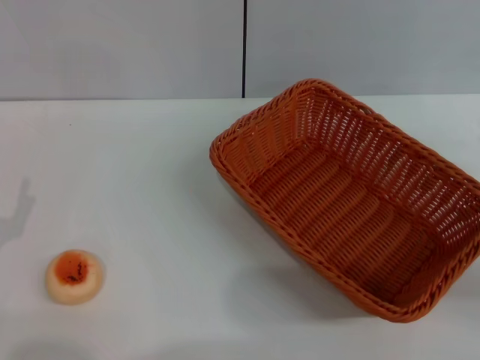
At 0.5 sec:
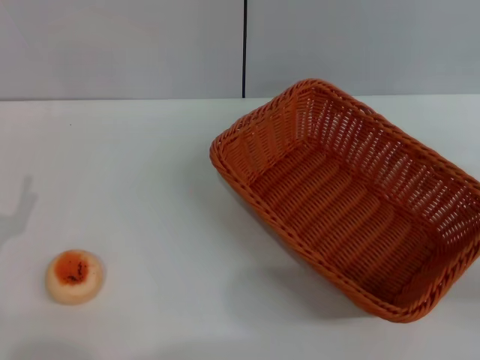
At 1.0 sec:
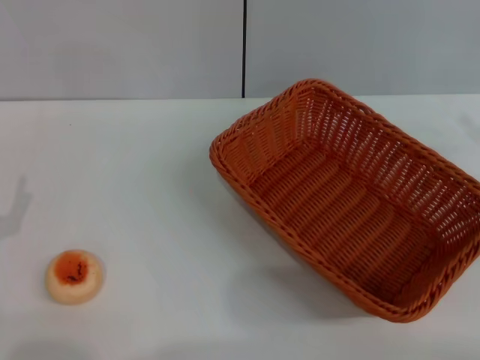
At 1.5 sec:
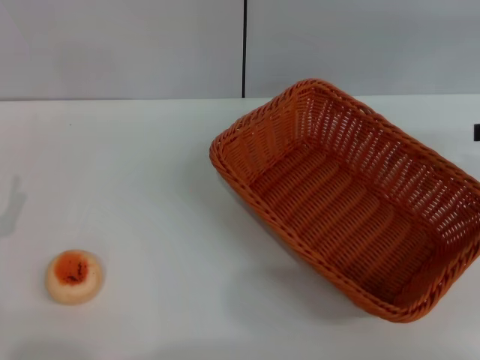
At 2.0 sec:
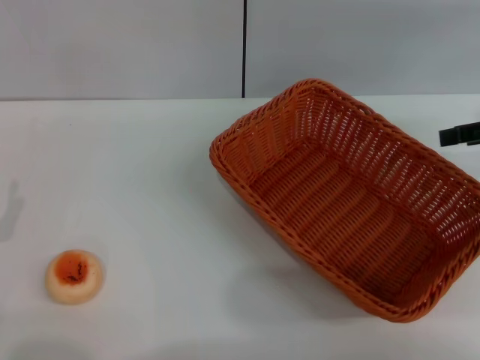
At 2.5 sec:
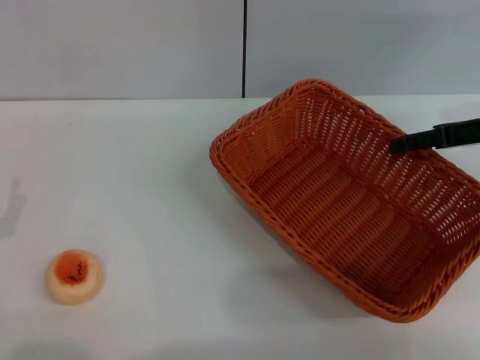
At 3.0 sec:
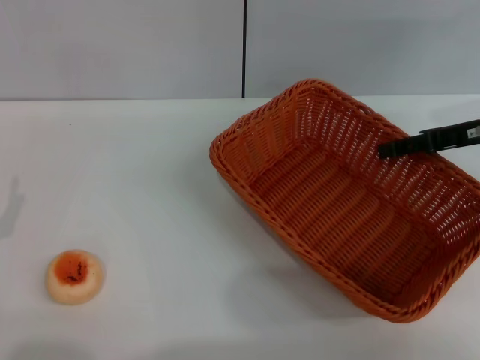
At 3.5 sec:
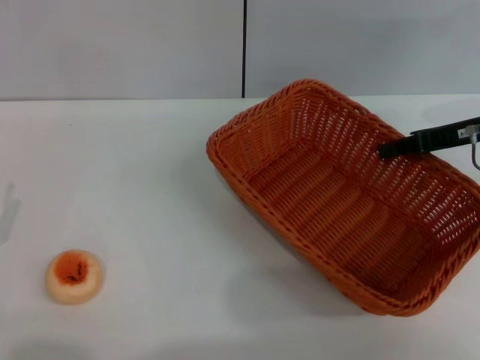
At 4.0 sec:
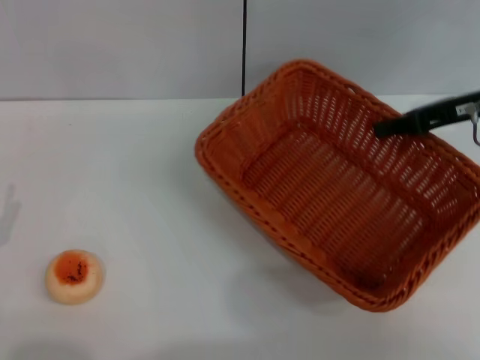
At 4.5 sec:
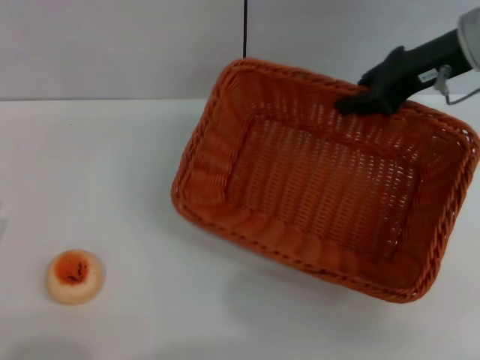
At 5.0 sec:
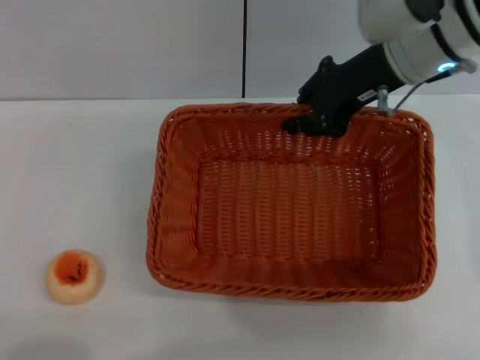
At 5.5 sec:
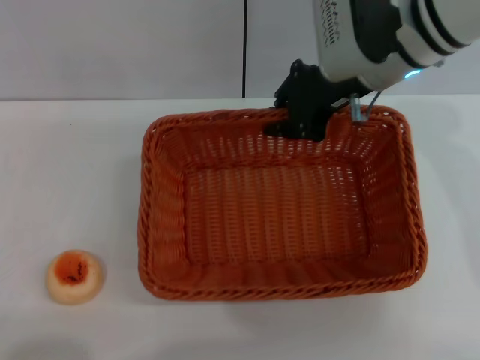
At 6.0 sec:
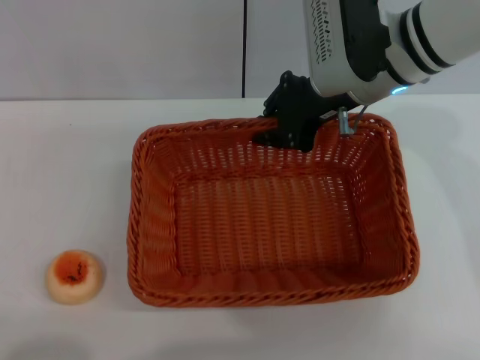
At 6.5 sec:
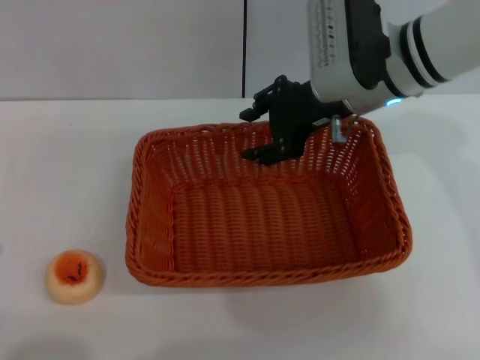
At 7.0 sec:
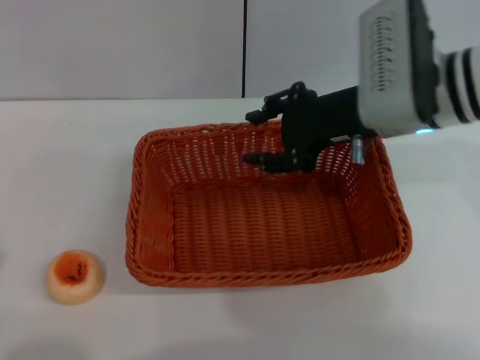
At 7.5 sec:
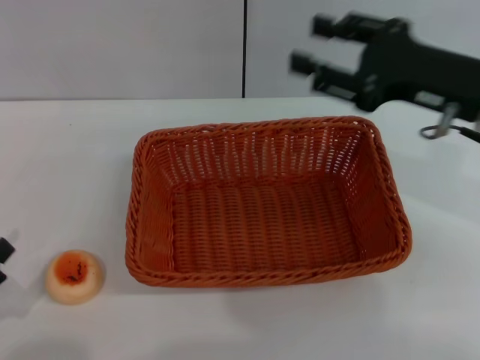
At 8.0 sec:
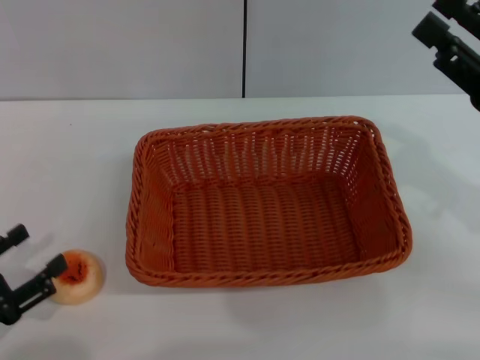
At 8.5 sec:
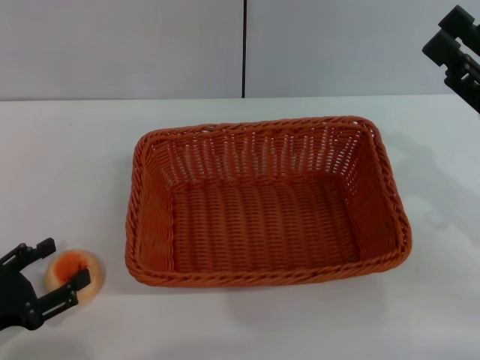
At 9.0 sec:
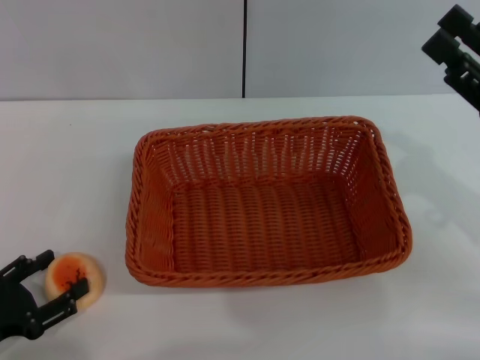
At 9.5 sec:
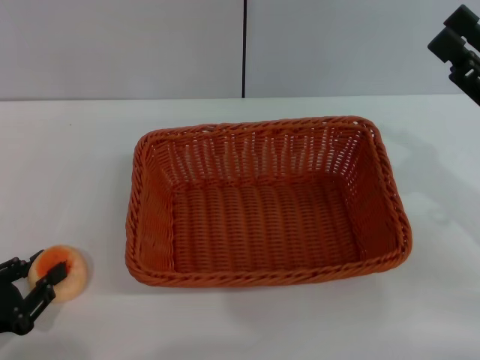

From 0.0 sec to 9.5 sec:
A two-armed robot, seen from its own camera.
Step, from 0.0 sec to 7.0 sec: Move the basket to the center of view with the right gripper.
From 0.0 sec to 2.0 sec: The right gripper shifts roughly 15 cm upward and forward.
From 2.0 sec to 4.0 sec: The right gripper travels to the left by approximately 5 cm, and closes up.
From 4.0 sec to 5.5 sec: The right gripper shifts approximately 15 cm to the left. The left gripper moves backward, approximately 5 cm.
From 5.5 sec to 7.5 sec: The right gripper travels to the right and backward by roughly 15 cm, and opens up.
From 7.5 sec to 9.5 sec: The right gripper travels to the right and downward by approximately 10 cm. Meanwhile the left gripper closes up.

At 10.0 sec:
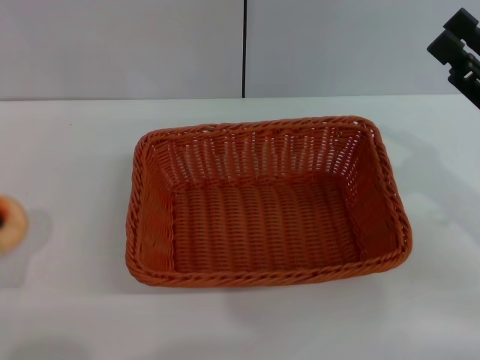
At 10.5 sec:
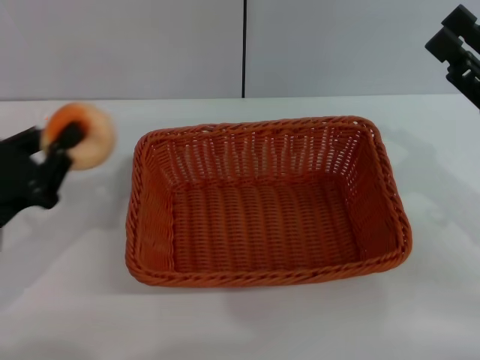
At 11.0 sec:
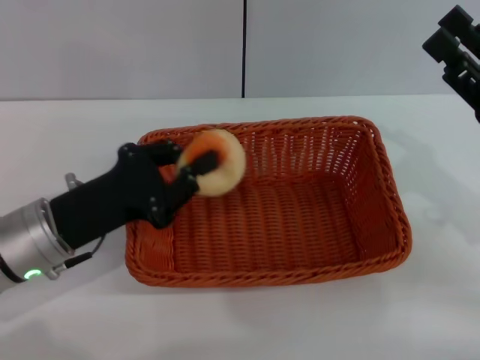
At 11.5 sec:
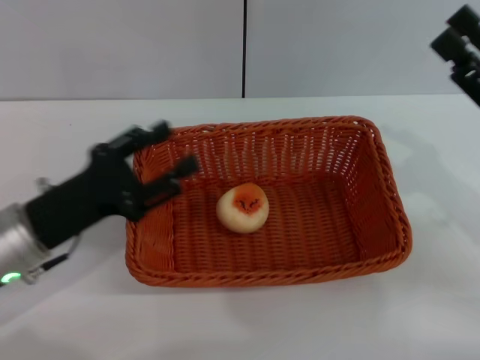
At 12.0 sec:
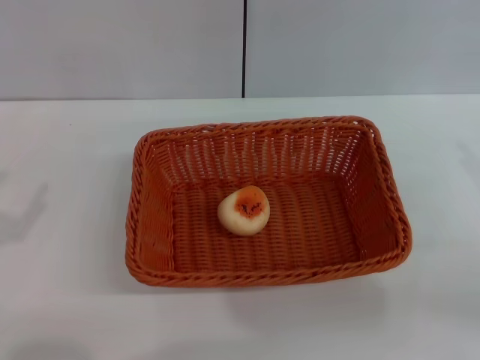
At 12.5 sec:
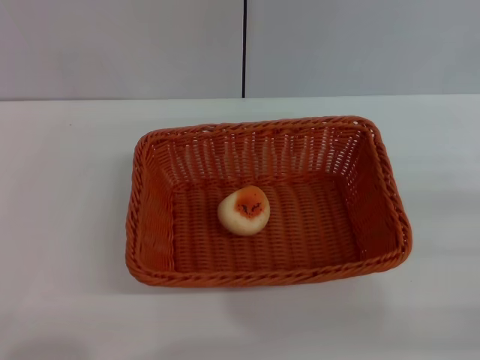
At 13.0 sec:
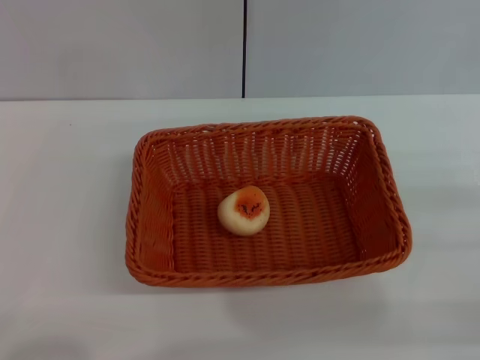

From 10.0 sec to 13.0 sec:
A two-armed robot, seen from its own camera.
Step, from 10.5 sec to 11.5 sec: Place the egg yolk pastry into the basket with the left gripper.
From 10.0 sec to 11.5 sec: The left gripper moves to the right and forward, some 15 cm, and opens its fingers.
From 11.5 sec to 13.0 sec: The left gripper goes approximately 20 cm to the left and backward, and opens its fingers, while the right gripper travels to the right and backward by about 10 cm.

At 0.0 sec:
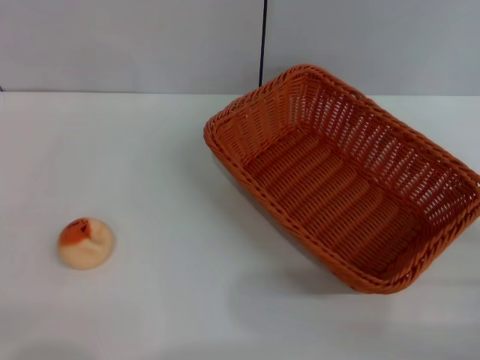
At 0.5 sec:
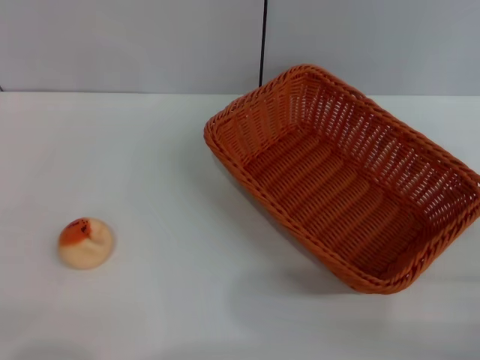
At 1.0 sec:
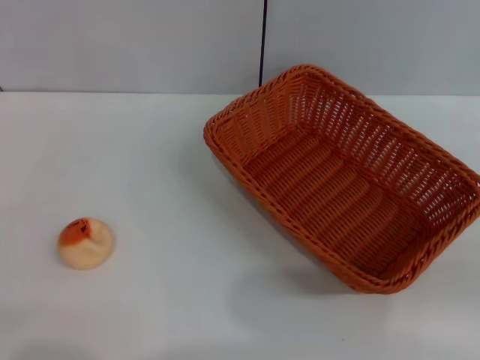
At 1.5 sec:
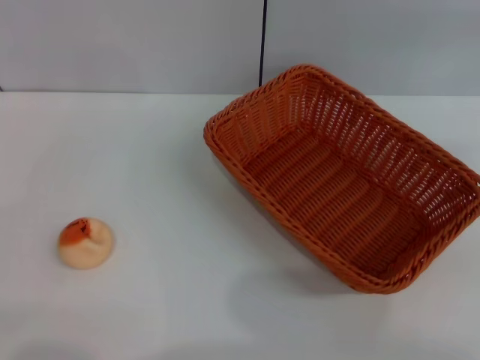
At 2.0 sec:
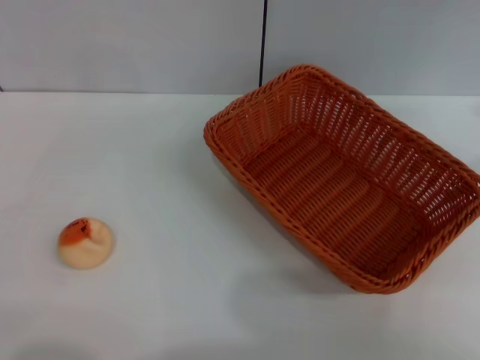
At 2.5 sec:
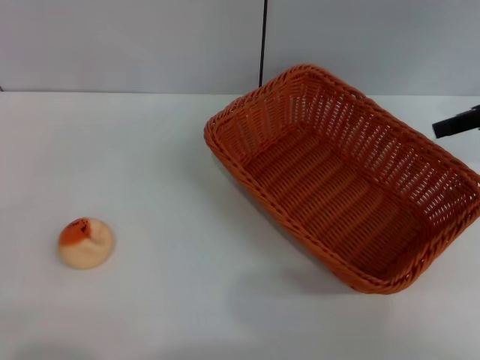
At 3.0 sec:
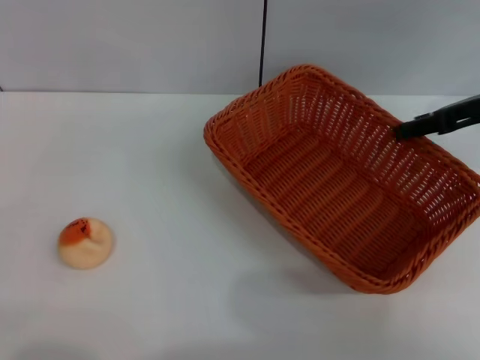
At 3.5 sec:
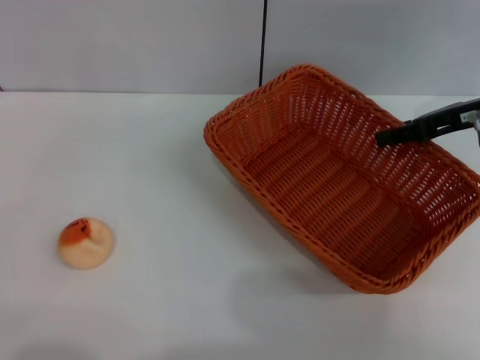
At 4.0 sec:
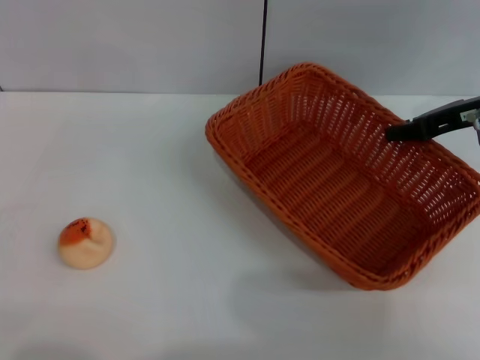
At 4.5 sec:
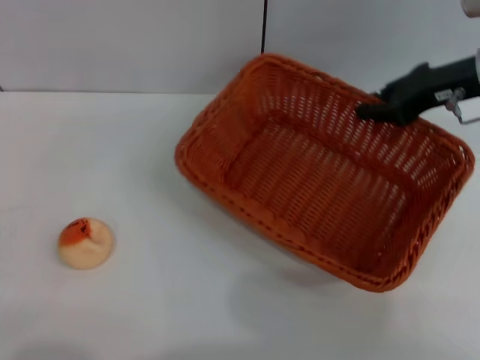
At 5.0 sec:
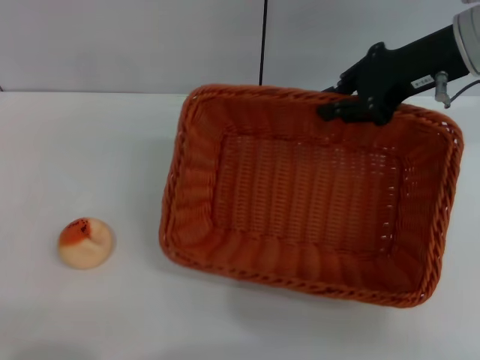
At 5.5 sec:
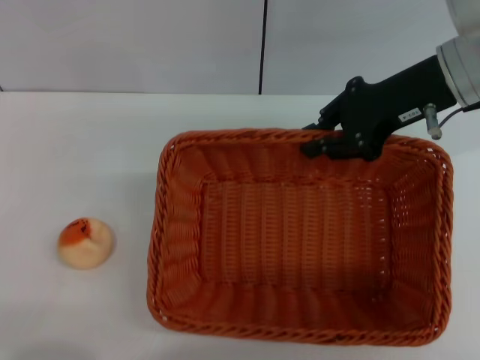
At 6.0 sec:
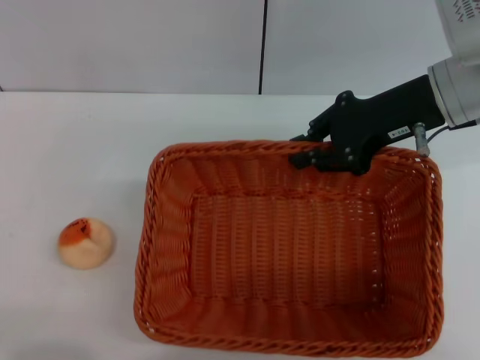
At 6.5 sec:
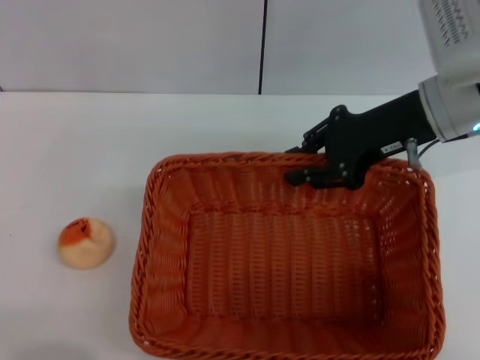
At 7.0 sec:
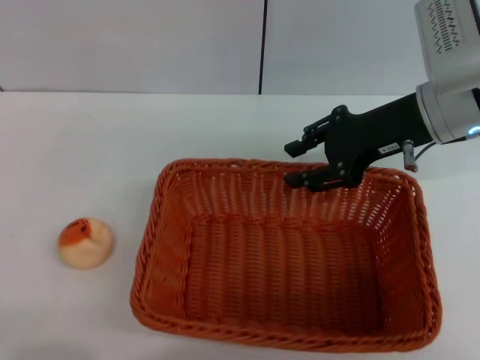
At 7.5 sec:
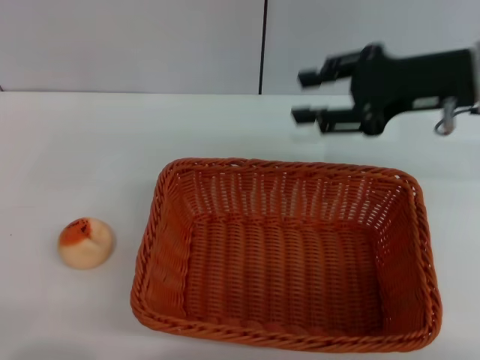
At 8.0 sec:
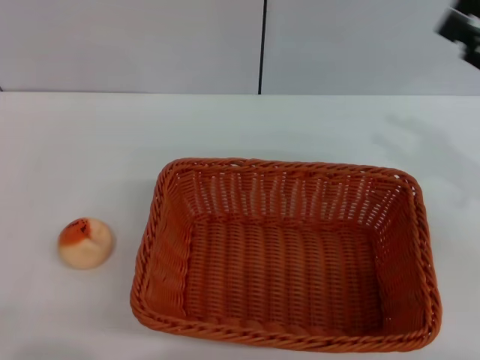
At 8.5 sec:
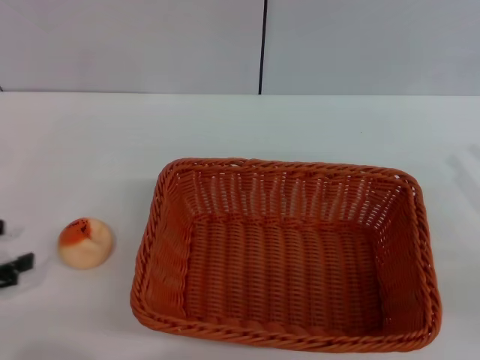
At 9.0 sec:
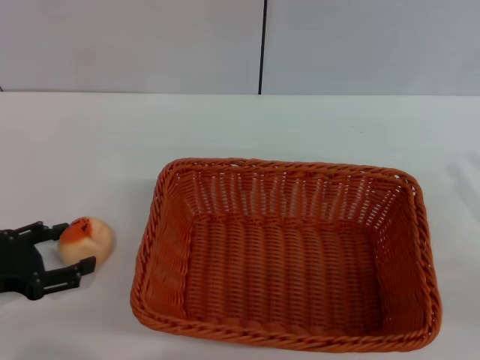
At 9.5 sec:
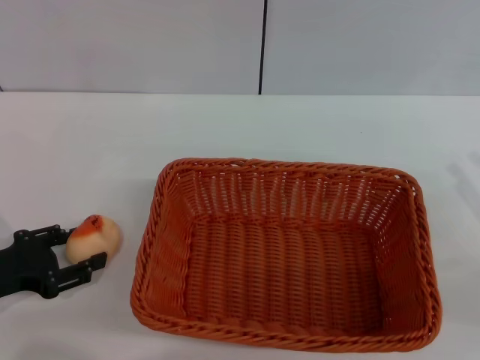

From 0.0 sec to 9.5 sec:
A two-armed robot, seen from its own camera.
Step, from 0.0 sec to 7.0 sec: Move the basket to the center of view with the right gripper.
From 0.0 sec to 2.0 sec: The right gripper travels upward and forward by roughly 30 cm.
From 2.0 sec to 4.0 sec: The right gripper moves downward and to the left, some 10 cm, and closes.
From 4.0 sec to 5.5 sec: The right gripper goes some 10 cm to the left, and closes.
From 5.5 sec to 7.5 sec: The right gripper opens up.
From 7.5 sec to 9.5 sec: The right gripper shifts roughly 25 cm backward, to the right and downward, while the left gripper moves forward, about 10 cm.

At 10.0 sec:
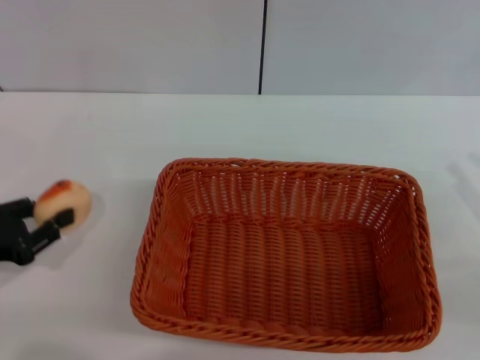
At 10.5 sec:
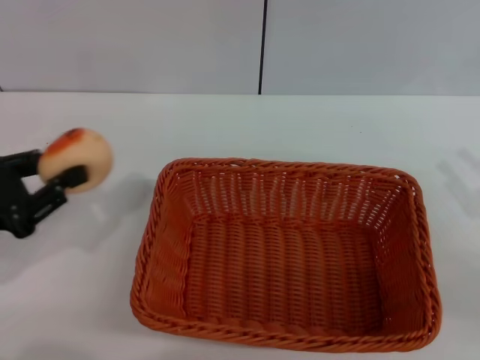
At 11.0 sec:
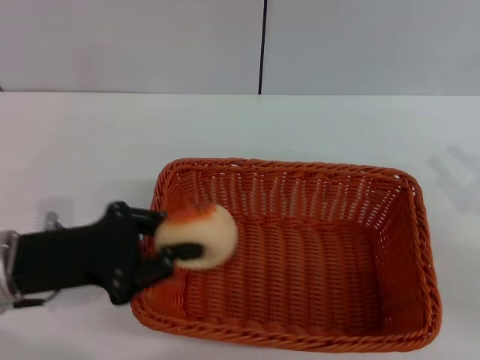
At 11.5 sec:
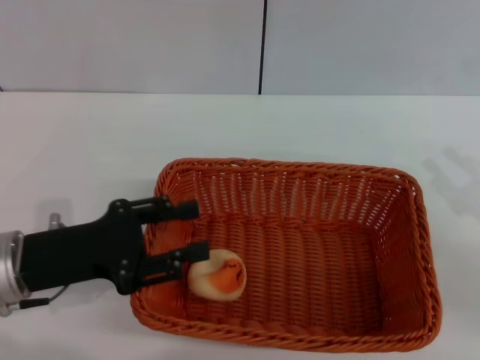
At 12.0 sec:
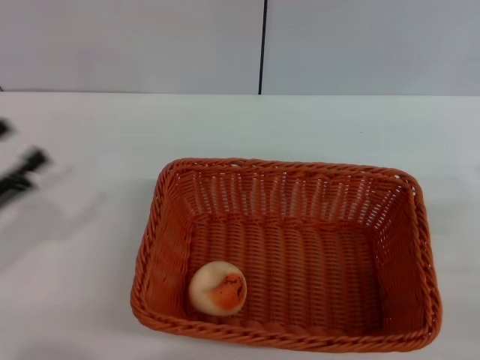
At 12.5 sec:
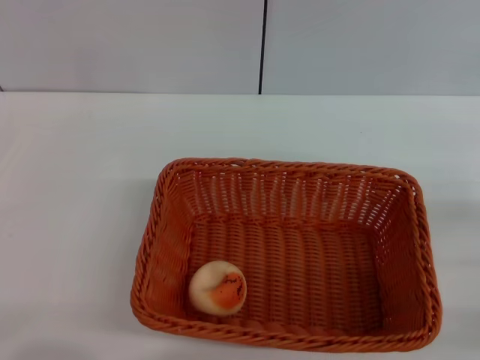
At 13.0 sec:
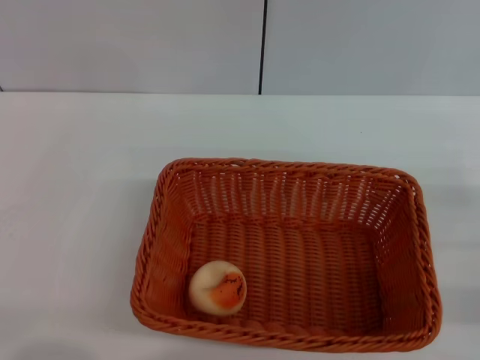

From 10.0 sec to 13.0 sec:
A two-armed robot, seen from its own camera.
Step, from 10.5 sec to 11.5 sec: Place the egg yolk pastry into the basket with the left gripper.
From 10.0 sec to 11.5 sec: The left gripper shifts some 10 cm to the right.
From 11.5 sec to 13.0 sec: The left gripper shifts some 15 cm to the left and backward, and opens its fingers.
